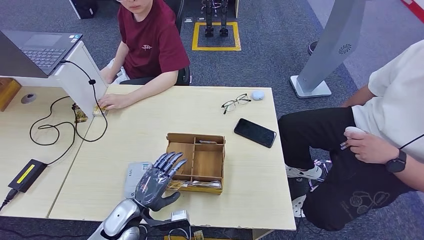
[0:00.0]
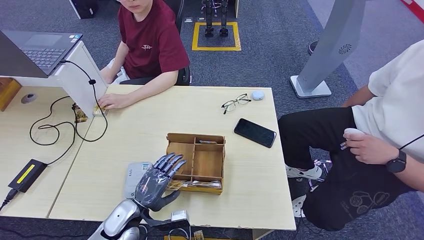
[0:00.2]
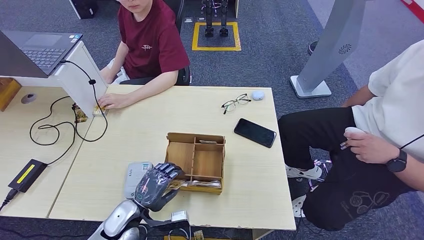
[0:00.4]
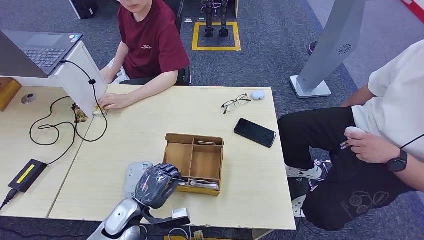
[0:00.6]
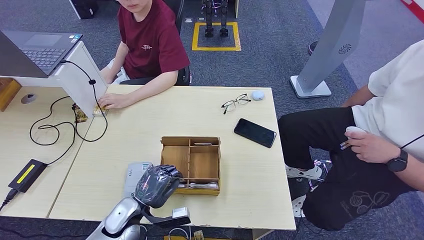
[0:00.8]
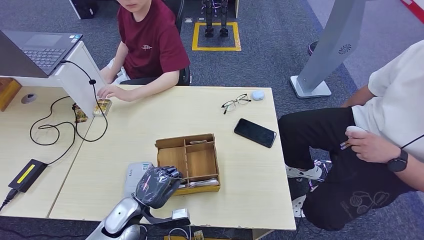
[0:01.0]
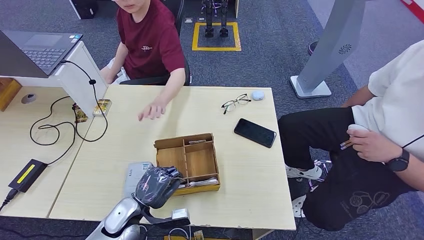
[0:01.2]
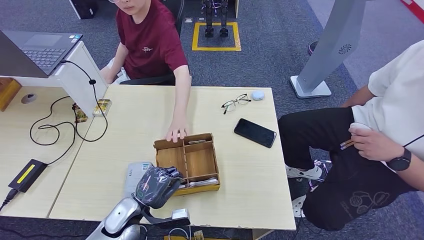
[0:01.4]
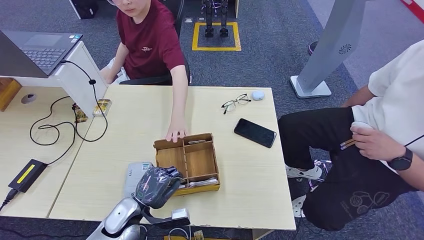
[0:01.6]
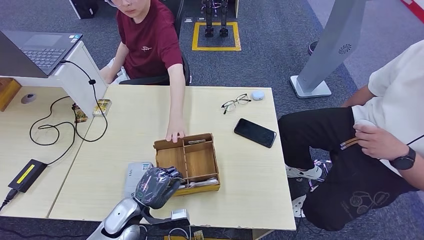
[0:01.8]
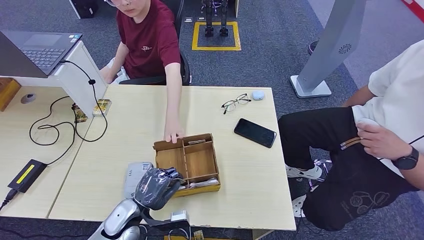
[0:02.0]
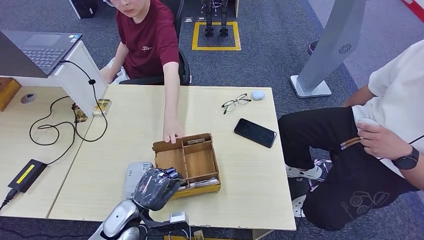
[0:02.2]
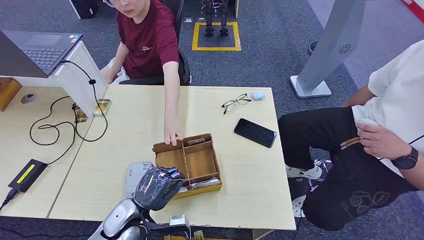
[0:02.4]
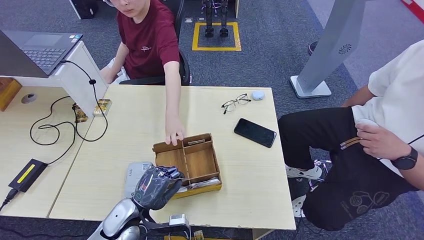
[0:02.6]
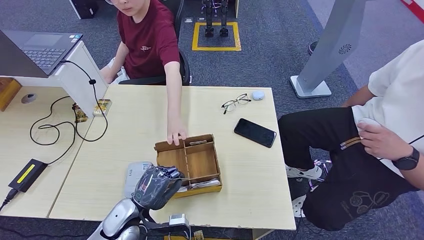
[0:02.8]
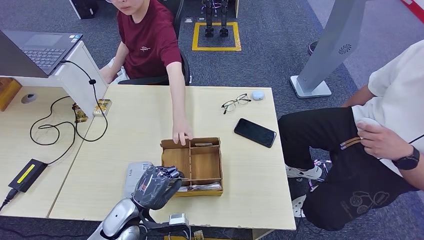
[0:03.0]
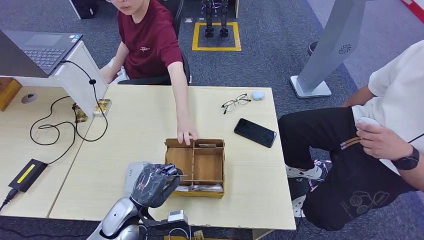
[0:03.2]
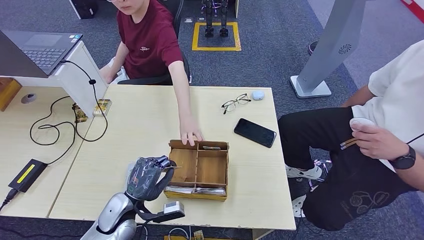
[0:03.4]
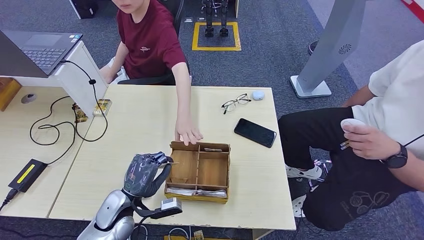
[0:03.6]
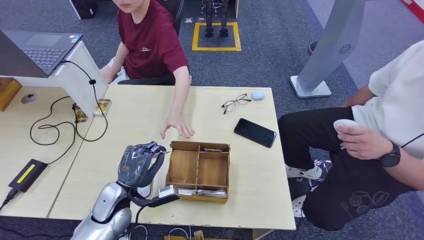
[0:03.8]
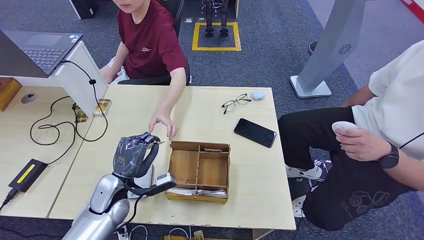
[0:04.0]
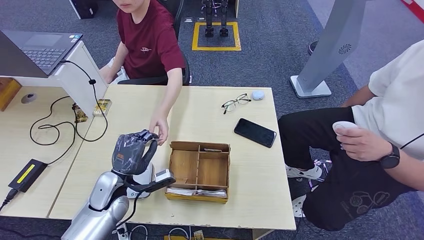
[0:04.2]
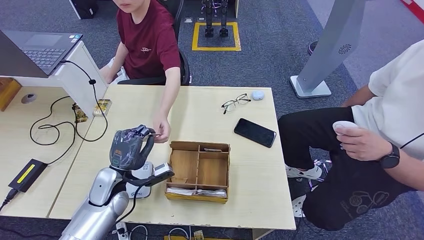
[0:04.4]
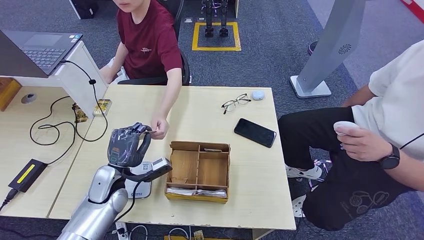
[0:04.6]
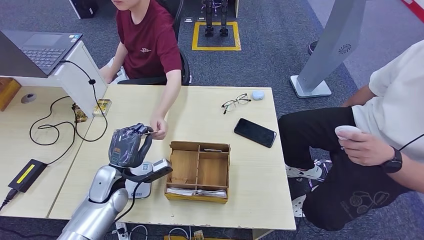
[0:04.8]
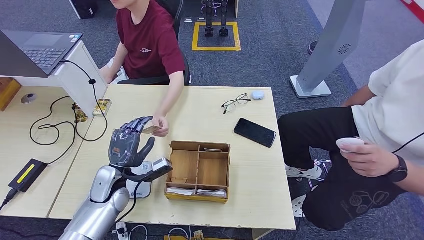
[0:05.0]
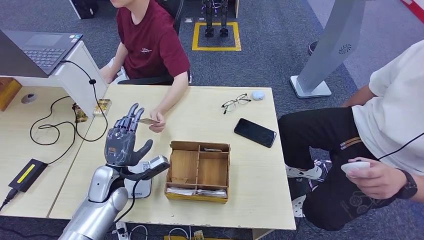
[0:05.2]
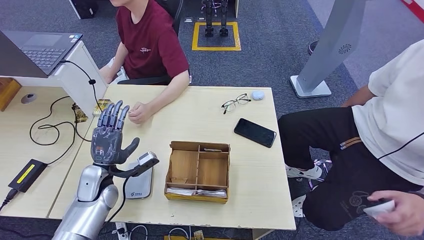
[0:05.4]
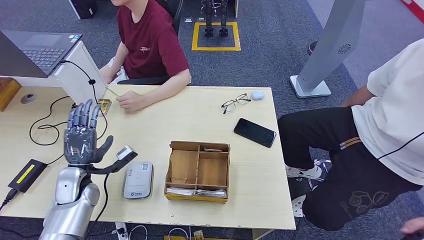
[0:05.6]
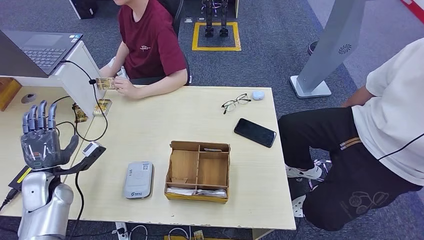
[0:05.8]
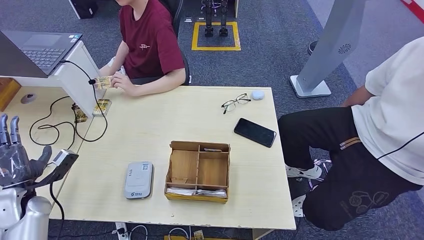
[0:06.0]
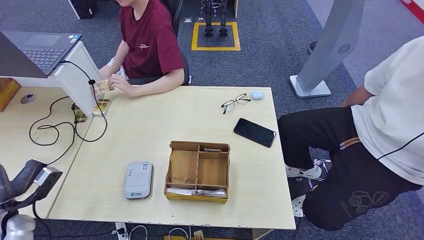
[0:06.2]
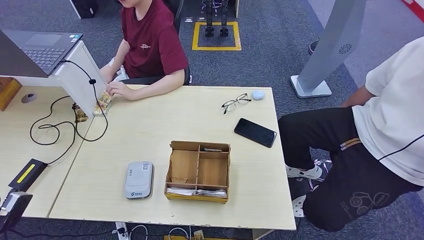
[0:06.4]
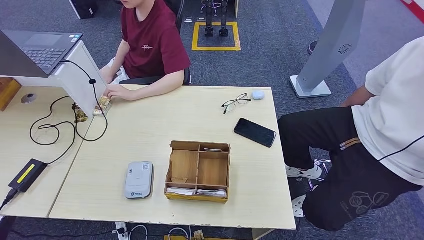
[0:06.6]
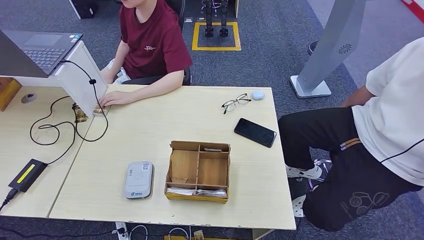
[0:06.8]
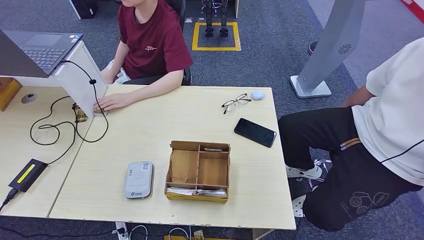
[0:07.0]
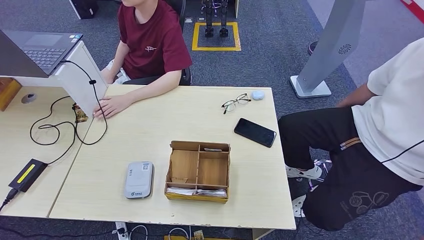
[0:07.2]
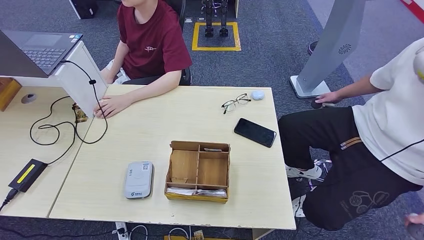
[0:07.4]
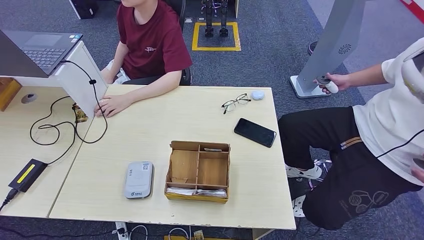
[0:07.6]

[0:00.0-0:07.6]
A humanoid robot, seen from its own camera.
Step, 0:00.0 to 0:02.2: Pick up the room key from the key card box.
Step, 0:02.8 to 0:07.6: Hand the room key to the person.
0:00.0 to 0:01.6: Both hands stay about where they are.
0:01.6 to 0:03.0: There are only small adjustments of the hands.
0:03.0 to 0:04.6: The left hand heads forward, covering about 10 cm.
0:04.6 to 0:06.0: The left hand shifts roughly 20 cm to the left.
0:06.0 to 0:07.6: The left hand travels backward and downward by roughly 30 cm.
